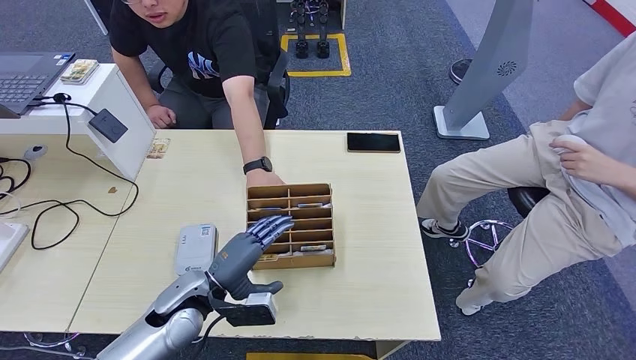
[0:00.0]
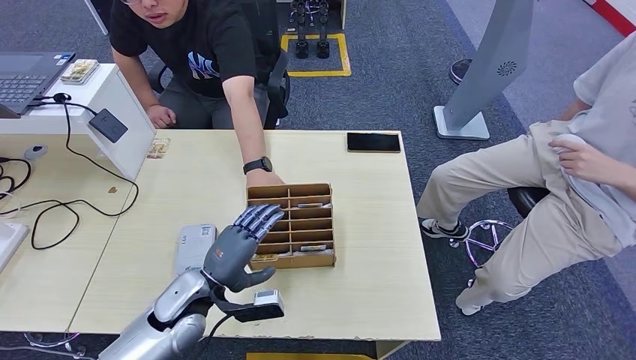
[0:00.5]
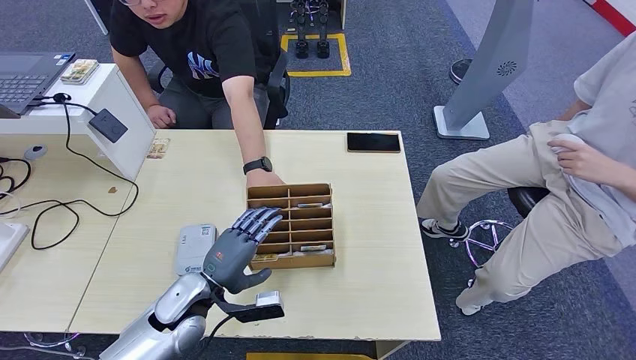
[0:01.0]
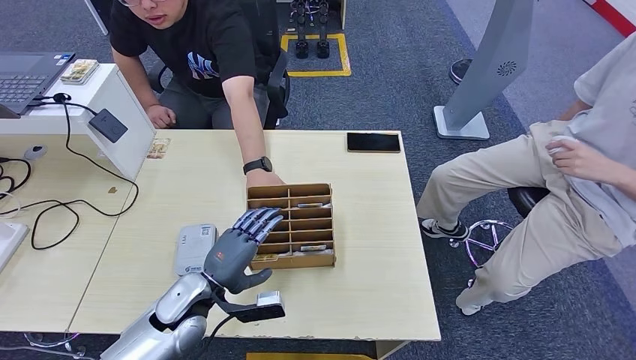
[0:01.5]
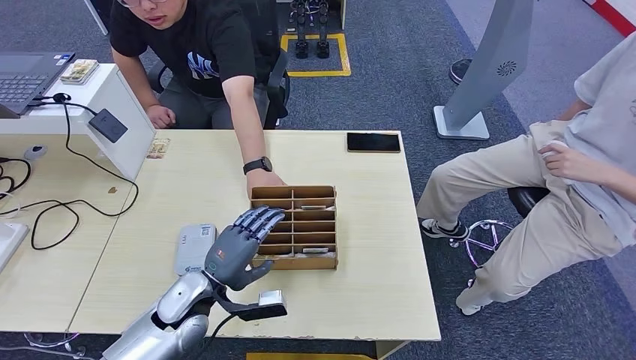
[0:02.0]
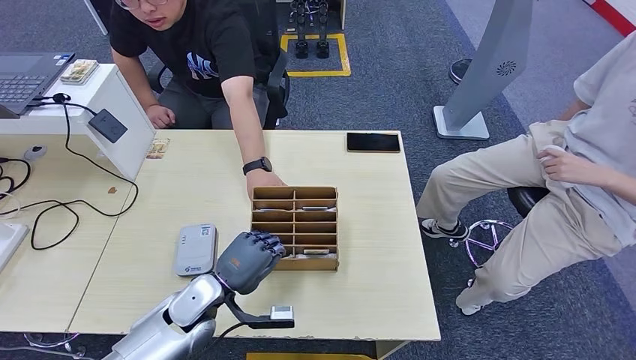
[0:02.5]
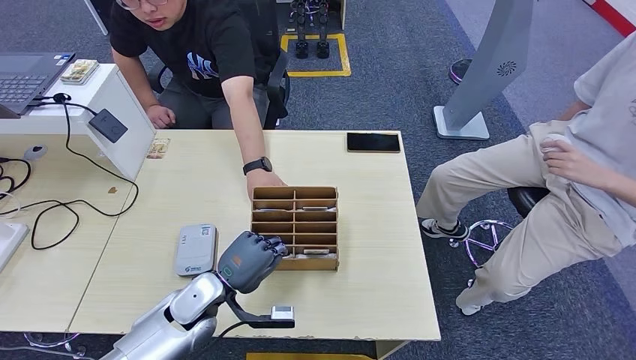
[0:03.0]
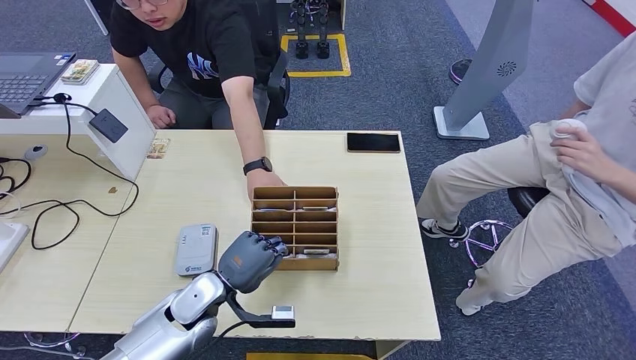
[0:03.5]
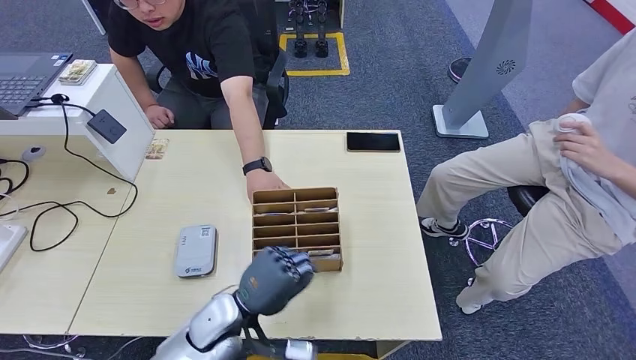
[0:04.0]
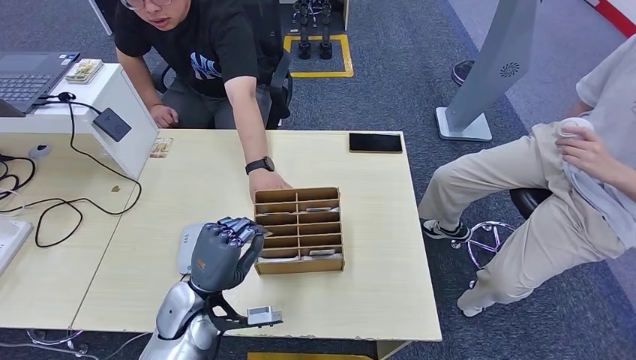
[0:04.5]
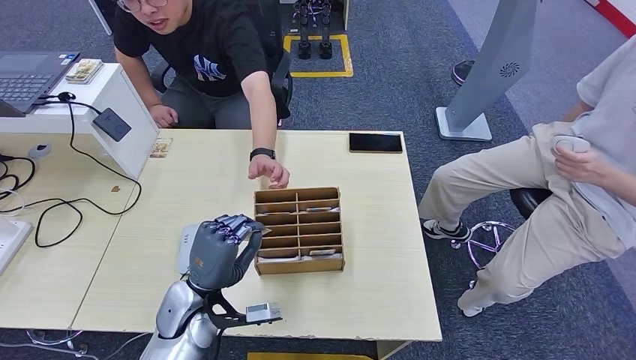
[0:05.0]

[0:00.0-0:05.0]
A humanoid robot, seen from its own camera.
Step, 0:00.0 to 0:03.5: Pick up the room key from the key card box.
Step, 0:04.0 to 0:05.0: Hand the room key to the person.
